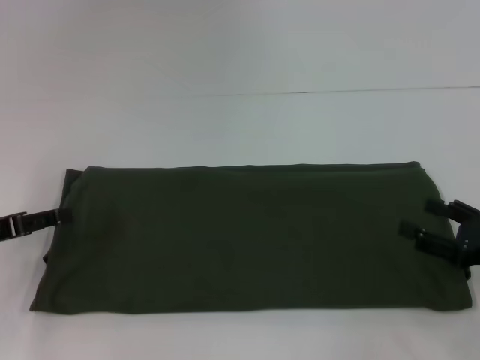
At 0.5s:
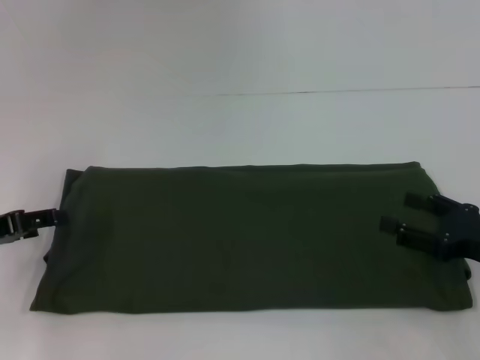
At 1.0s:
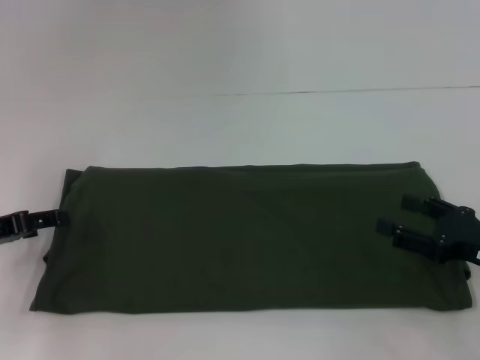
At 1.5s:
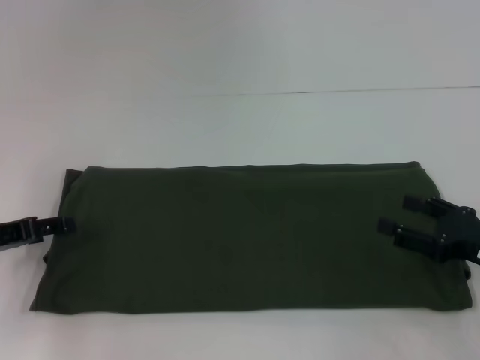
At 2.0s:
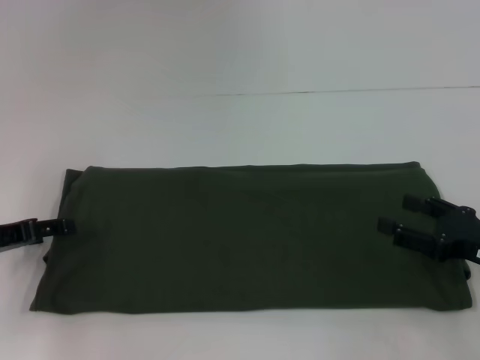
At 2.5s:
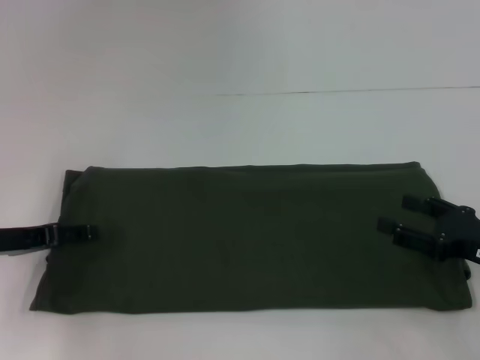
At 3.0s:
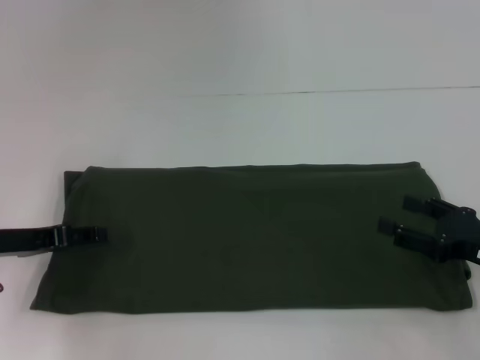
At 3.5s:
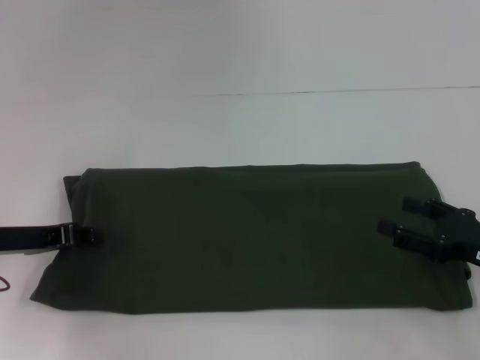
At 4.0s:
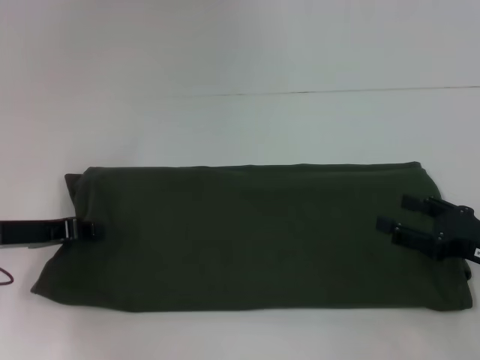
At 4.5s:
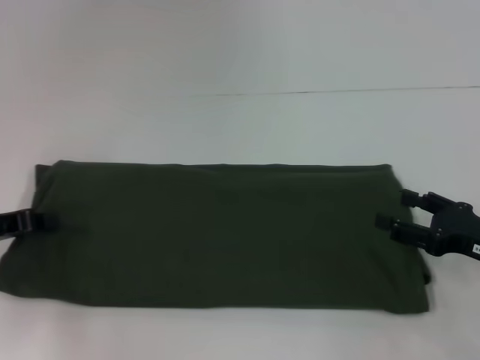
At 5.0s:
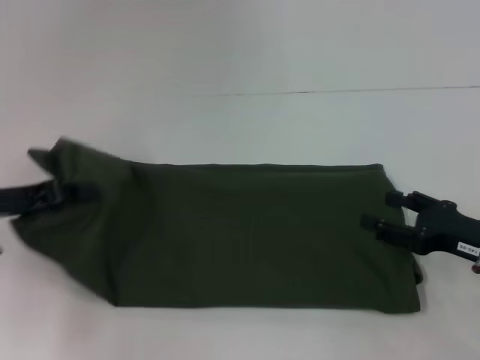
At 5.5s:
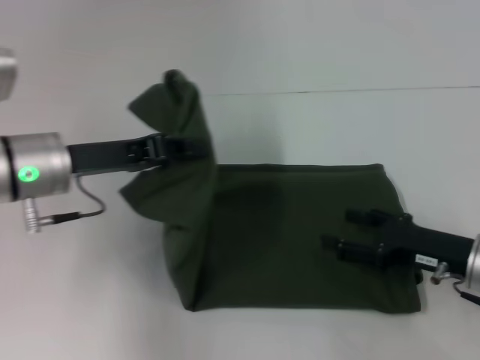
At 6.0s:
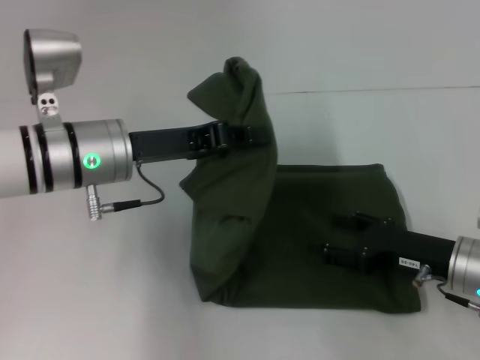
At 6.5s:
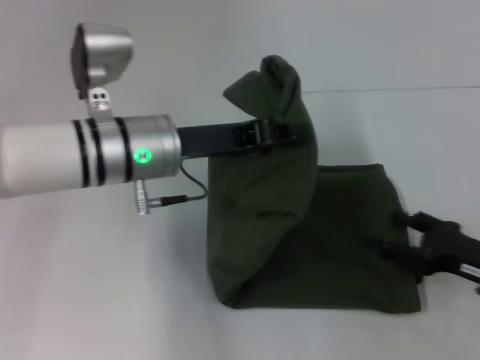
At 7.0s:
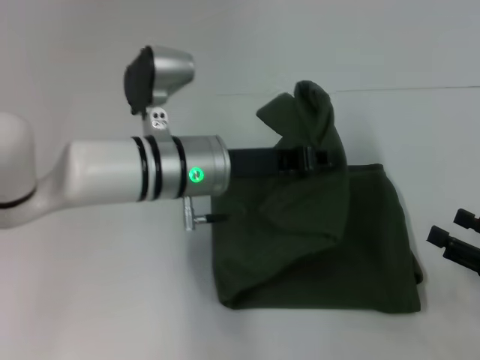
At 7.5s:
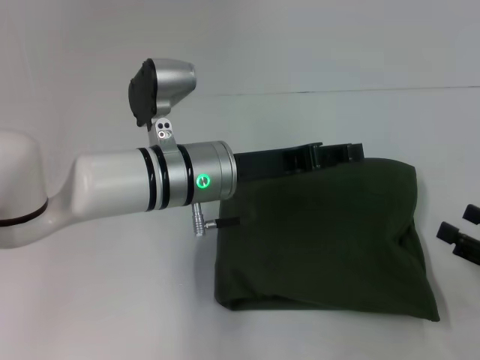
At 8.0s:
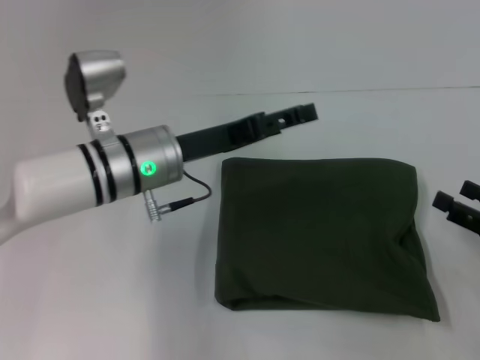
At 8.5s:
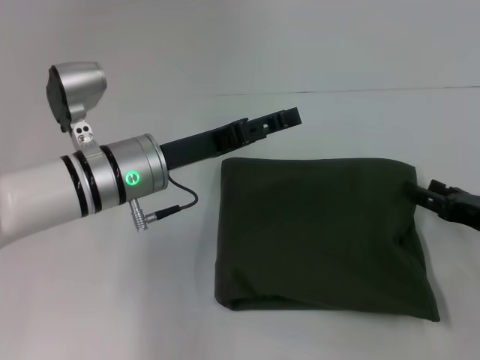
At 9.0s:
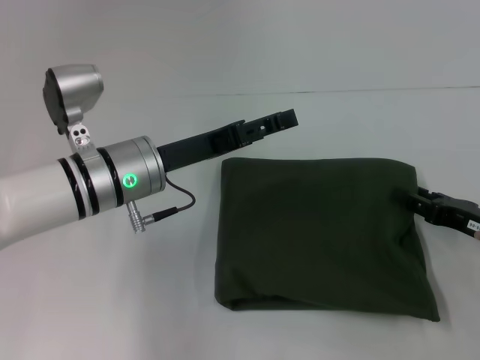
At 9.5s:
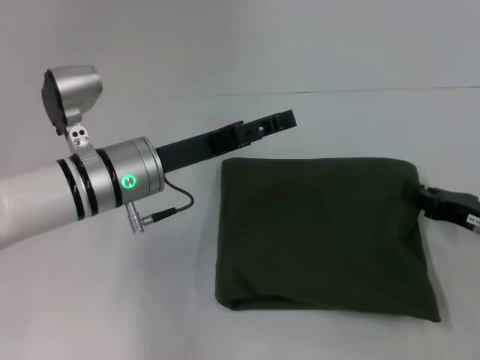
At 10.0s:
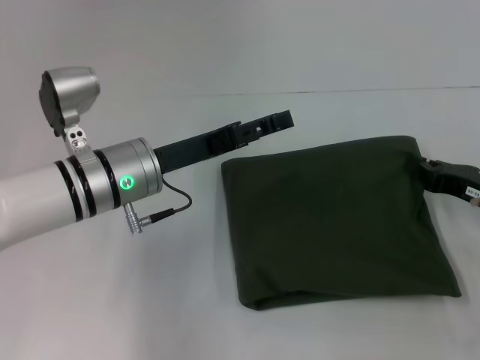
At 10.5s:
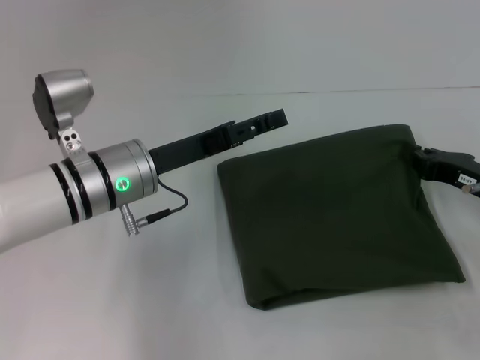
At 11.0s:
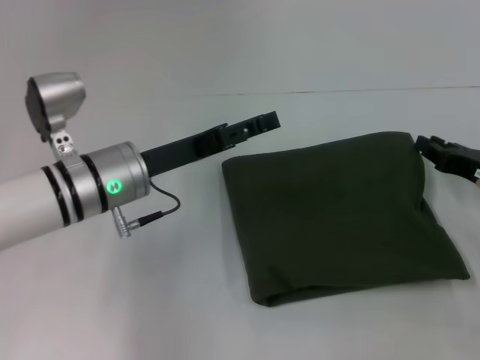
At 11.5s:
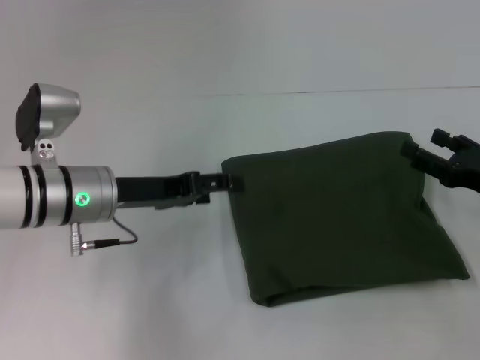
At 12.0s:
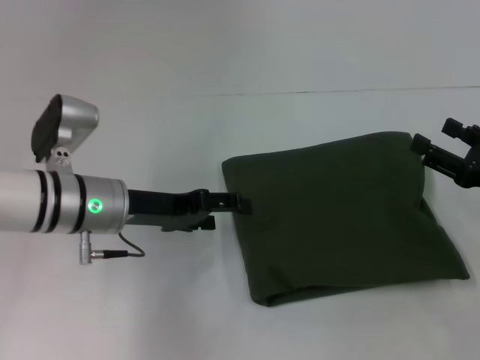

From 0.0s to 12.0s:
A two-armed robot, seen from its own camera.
Step, from 0.0s to 7.5s: Fold the clothes with your left hand.
From 0.0s to 2.0s: The grippers move only a little.
From 2.0s to 4.0s: The left gripper closes up.
From 4.0s to 6.0s: The left gripper is displaced to the right and upward by roughly 15 cm, while the right gripper shifts about 5 cm to the left.
From 6.0s to 8.0s: The right gripper travels to the right by approximately 10 cm, while the left gripper opens up.
From 8.0s to 10.0s: The right gripper travels forward by approximately 10 cm, and closes.
From 10.0s to 12.0s: The right gripper opens its fingers.

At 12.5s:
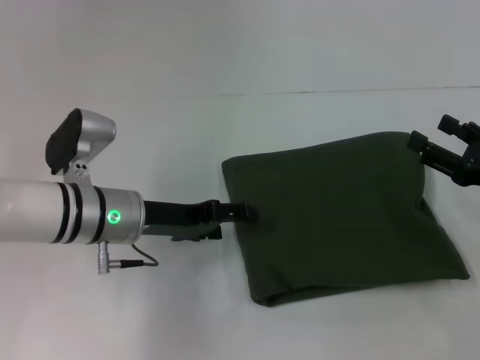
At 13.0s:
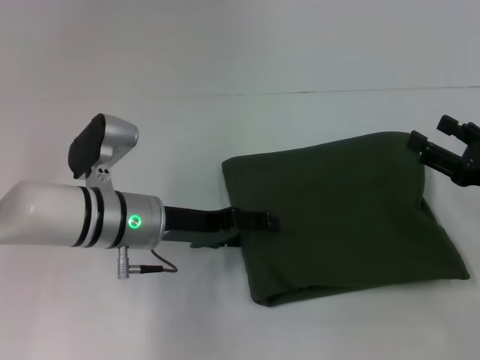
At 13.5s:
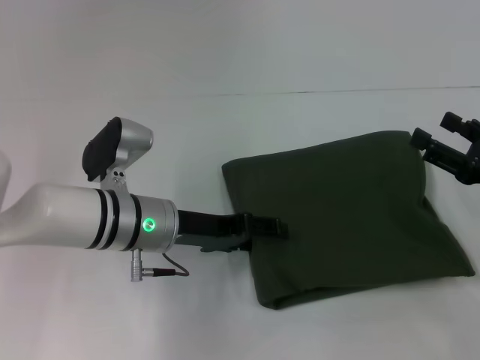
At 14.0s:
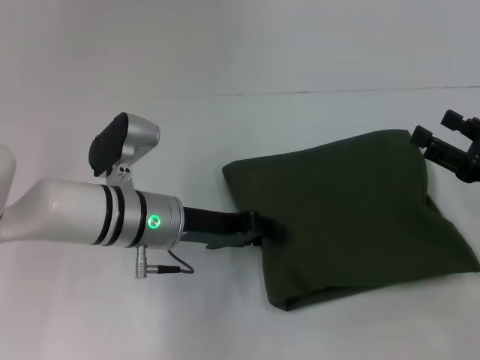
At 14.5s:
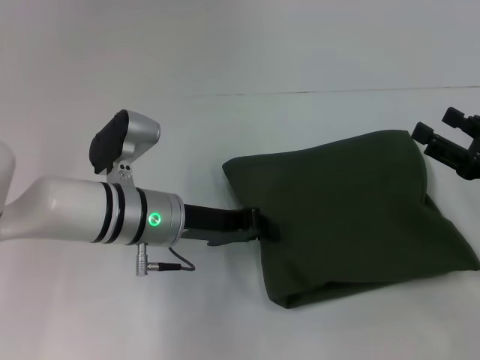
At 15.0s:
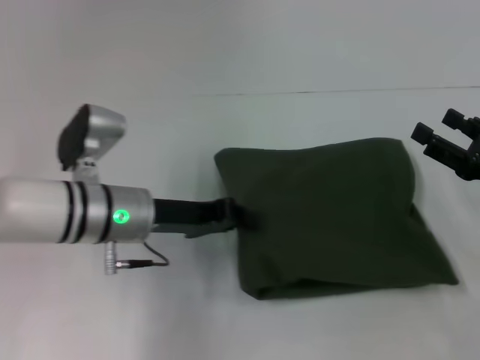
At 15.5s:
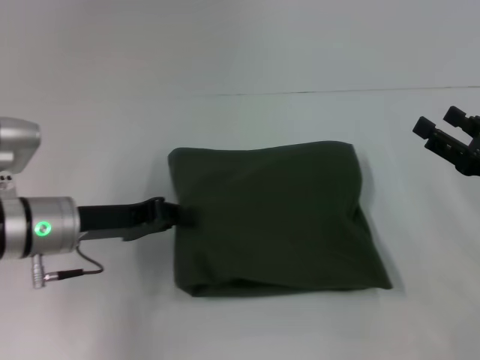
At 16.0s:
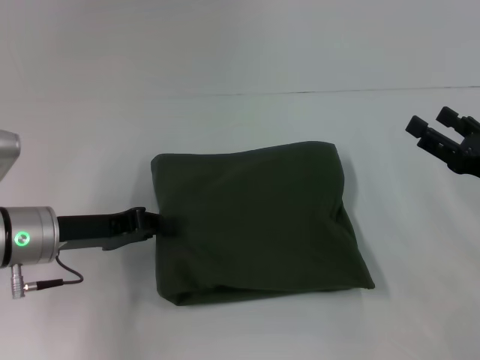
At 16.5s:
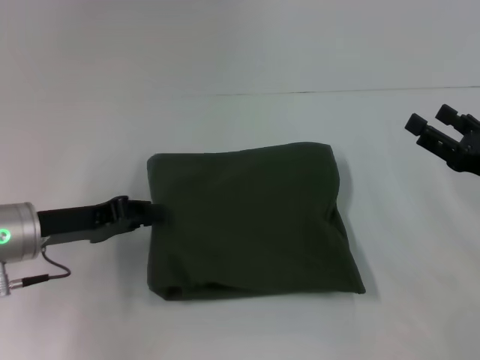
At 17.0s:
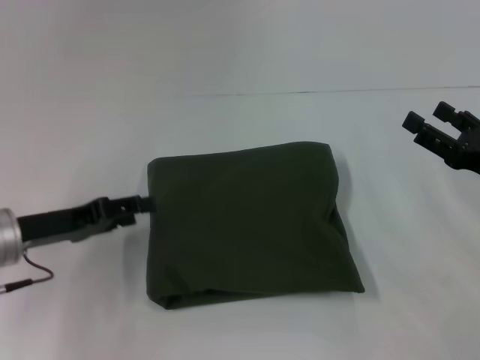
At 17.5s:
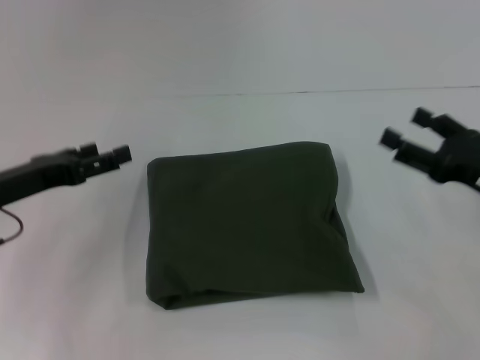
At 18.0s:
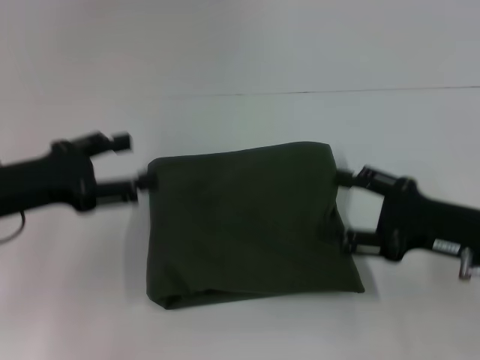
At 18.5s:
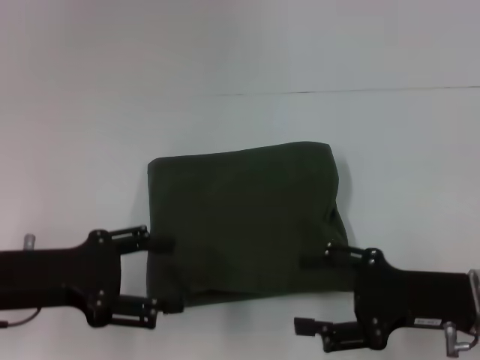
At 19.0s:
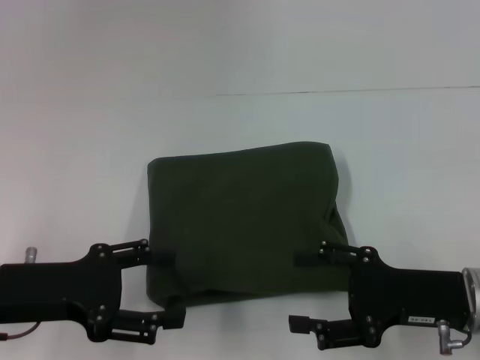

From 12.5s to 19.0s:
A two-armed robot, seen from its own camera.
From 12.5s to 14.5s: The left gripper closes.
From 14.5s to 17.0s: The left gripper goes about 15 cm to the left.
From 17.0s to 19.0s: The left gripper is displaced backward by some 5 cm, and opens up. Meanwhile the right gripper shifts about 10 cm to the left and backward.
